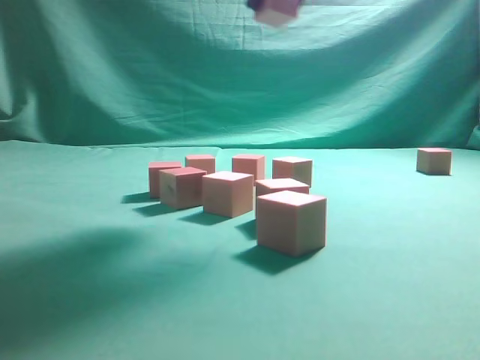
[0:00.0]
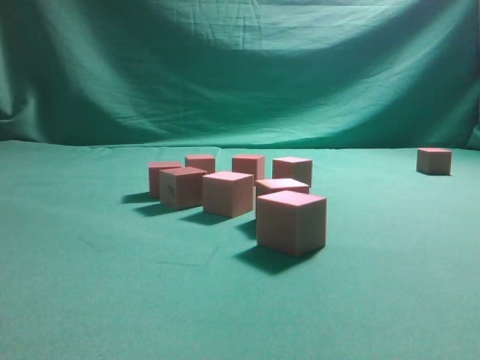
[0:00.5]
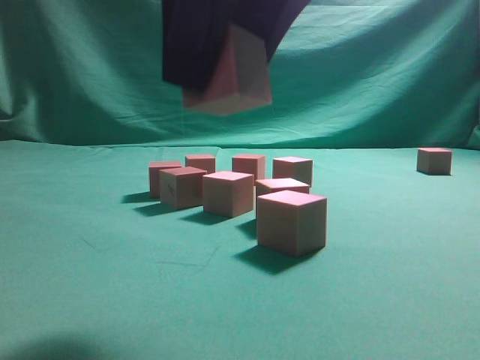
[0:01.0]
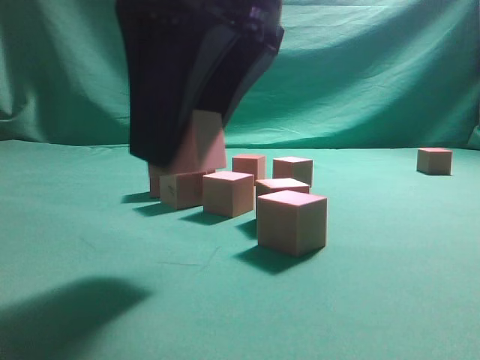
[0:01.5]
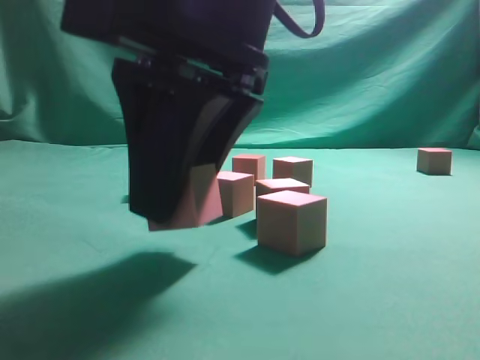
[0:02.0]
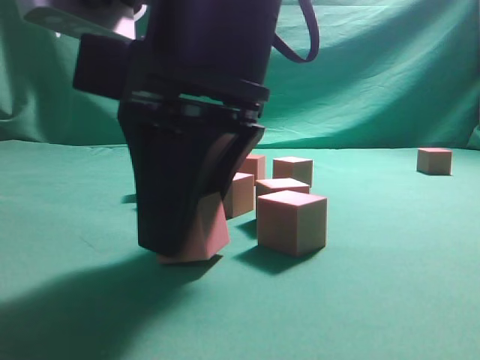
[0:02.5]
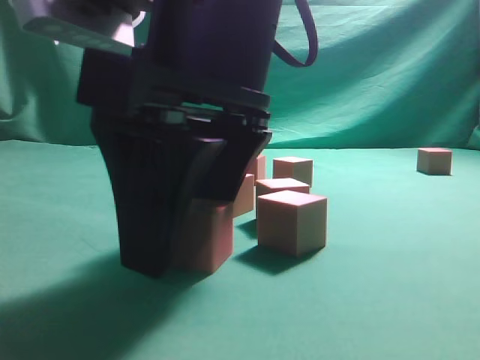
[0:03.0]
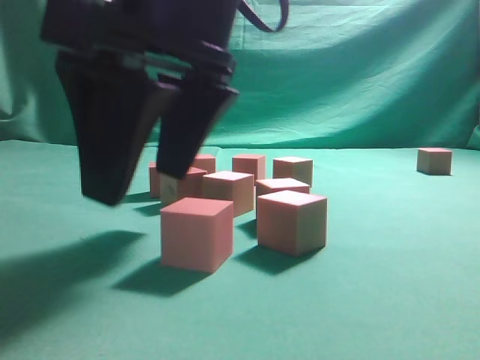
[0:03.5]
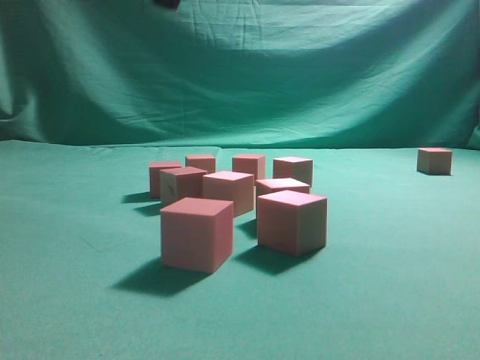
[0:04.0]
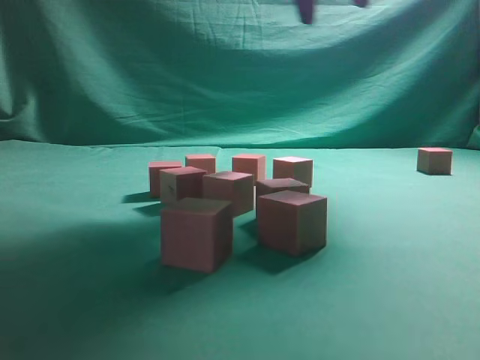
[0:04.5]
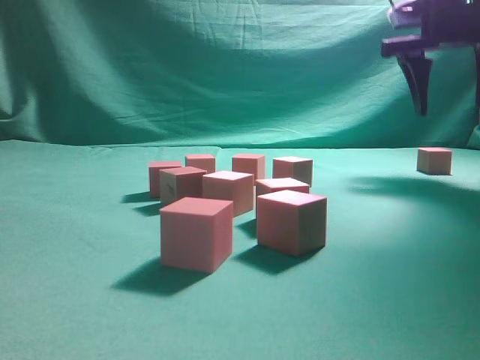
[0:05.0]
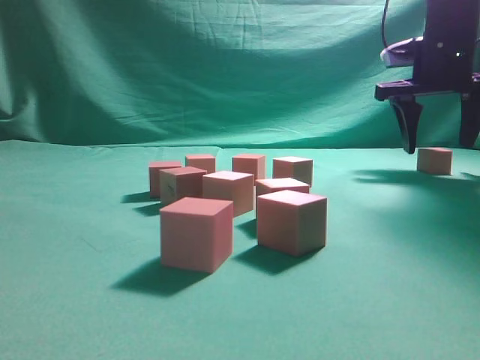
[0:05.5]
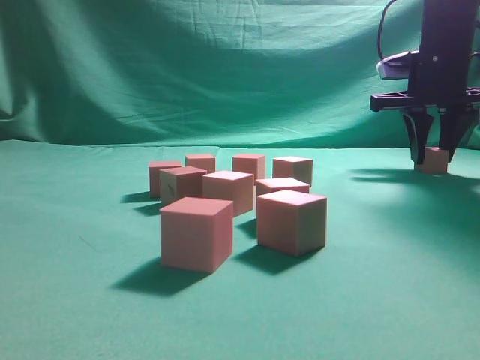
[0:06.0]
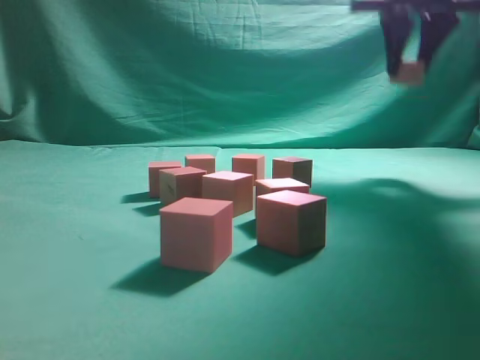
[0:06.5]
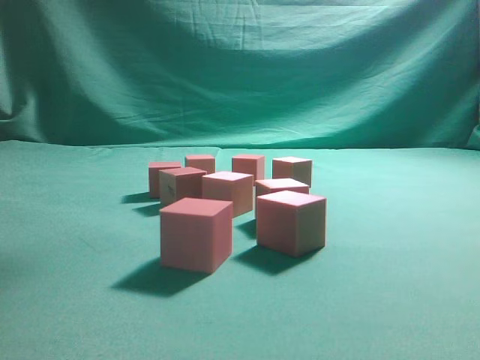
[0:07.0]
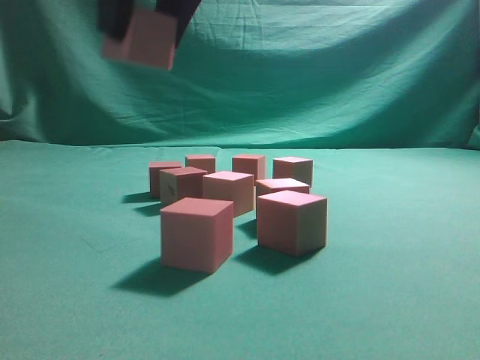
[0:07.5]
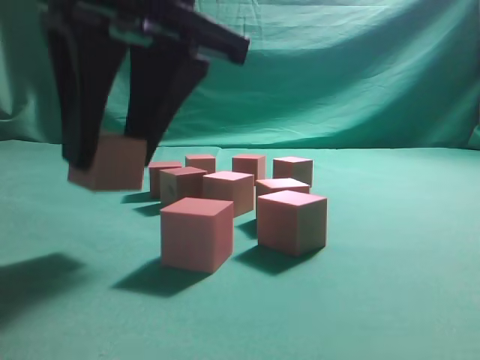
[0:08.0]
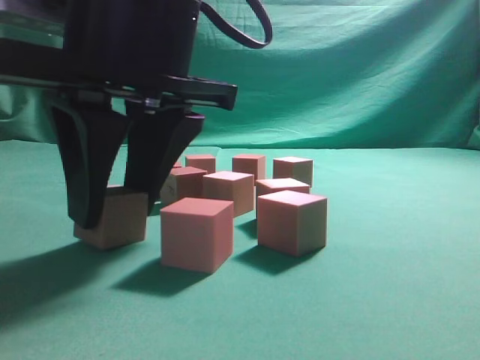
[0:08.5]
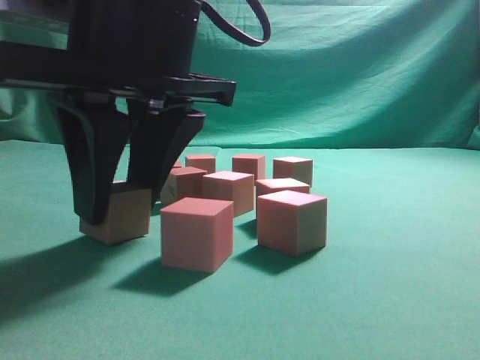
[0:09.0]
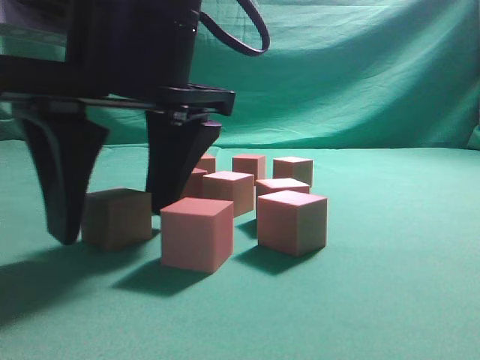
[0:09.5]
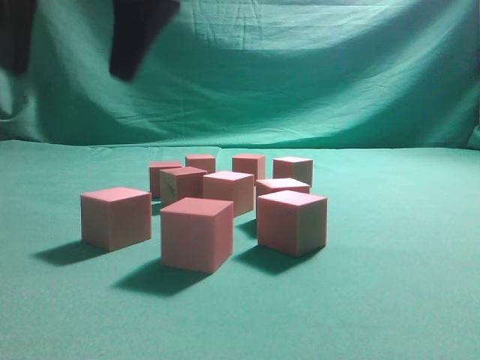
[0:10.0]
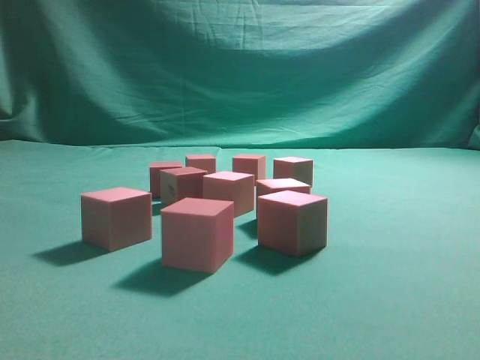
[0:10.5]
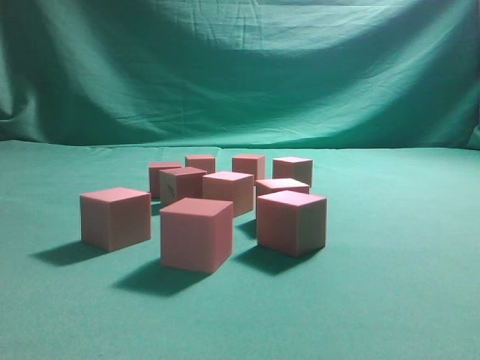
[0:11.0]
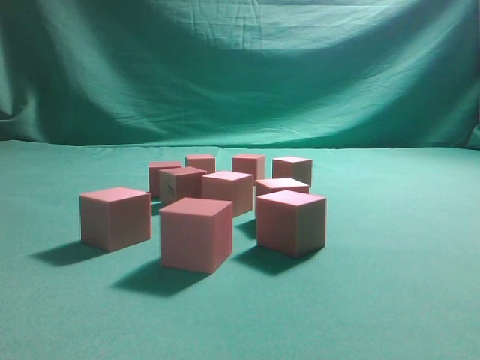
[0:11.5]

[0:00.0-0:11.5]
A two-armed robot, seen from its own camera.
Task of the whole recording: pick up the multiple cubes in two columns one by one and place them in another position on the table.
Step, 0:00.0 to 0:03.5: Place the block at the correct position to assemble the letter S.
Step, 0:04.0 to 0:06.0: Pick up the block on the table.
Step, 0:06.5 to 0:09.5: Place the block at the correct position to assemble the letter S.
0:00.0 to 0:02.0: The right gripper moves downward, backward and to the left, approximately 20 cm.
0:02.0 to 0:04.0: The right gripper moves upward, about 15 cm, and opens its fingers.
0:04.0 to 0:06.0: The right gripper heads to the right, forward and downward, covering about 40 cm, and closes.
0:06.0 to 0:07.5: The right gripper goes some 35 cm backward and to the left.
0:07.5 to 0:09.5: The right gripper moves downward, approximately 10 cm.
0:09.5 to 0:11.5: The right gripper travels upward, to the right and backward by approximately 40 cm, and closes up.
